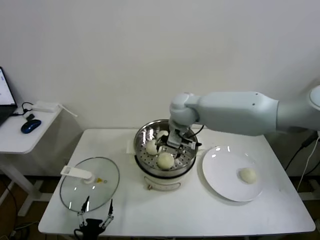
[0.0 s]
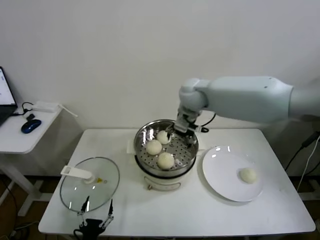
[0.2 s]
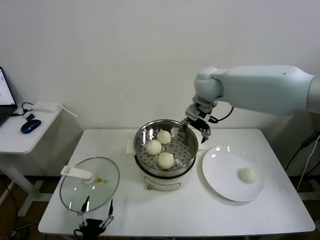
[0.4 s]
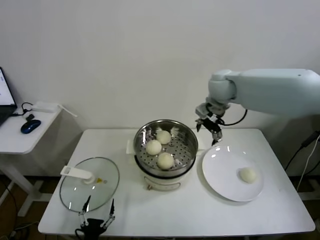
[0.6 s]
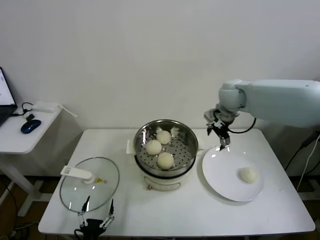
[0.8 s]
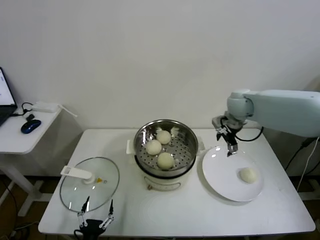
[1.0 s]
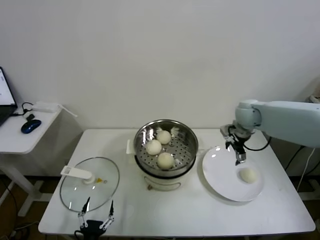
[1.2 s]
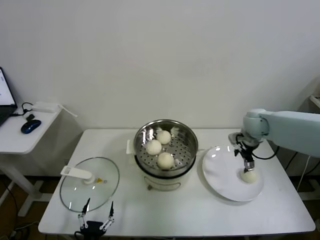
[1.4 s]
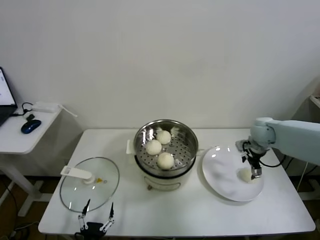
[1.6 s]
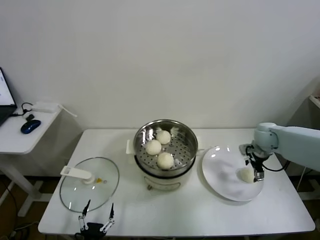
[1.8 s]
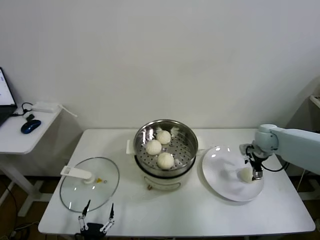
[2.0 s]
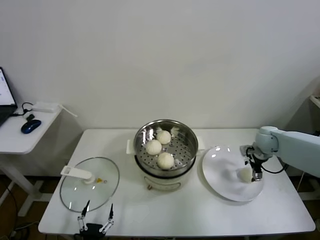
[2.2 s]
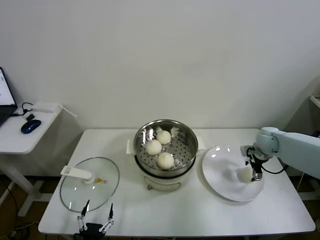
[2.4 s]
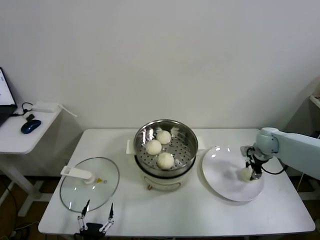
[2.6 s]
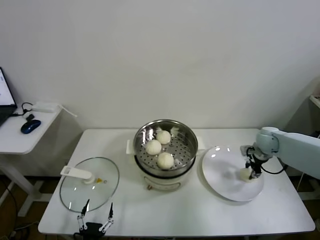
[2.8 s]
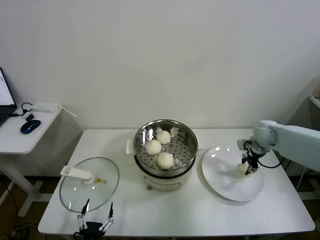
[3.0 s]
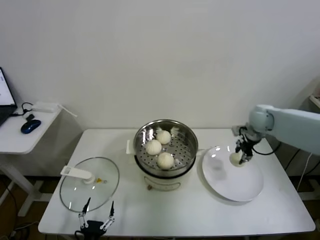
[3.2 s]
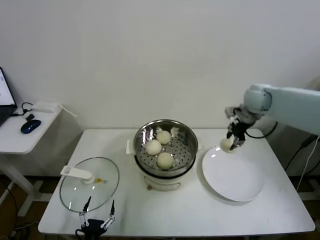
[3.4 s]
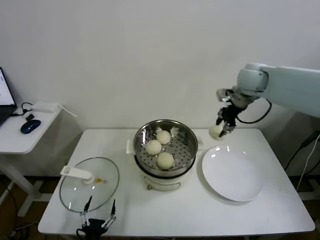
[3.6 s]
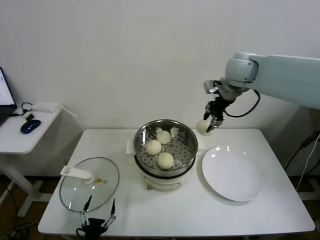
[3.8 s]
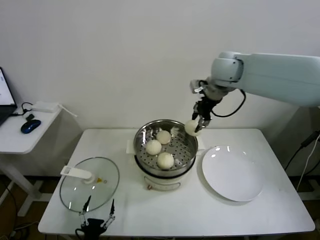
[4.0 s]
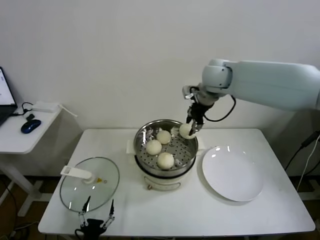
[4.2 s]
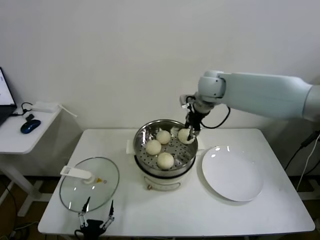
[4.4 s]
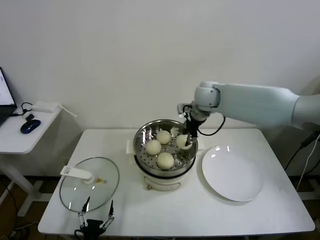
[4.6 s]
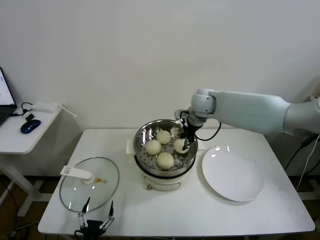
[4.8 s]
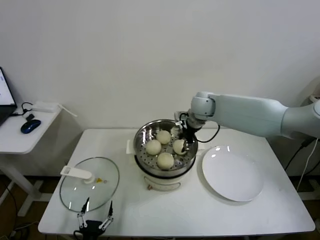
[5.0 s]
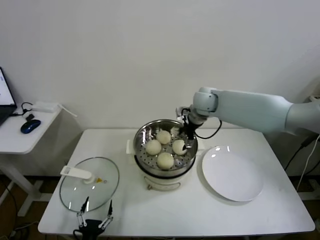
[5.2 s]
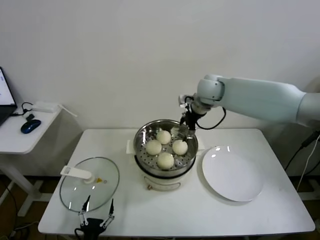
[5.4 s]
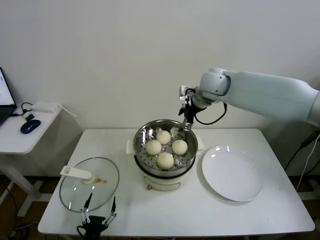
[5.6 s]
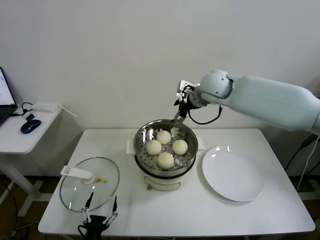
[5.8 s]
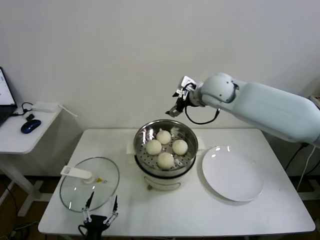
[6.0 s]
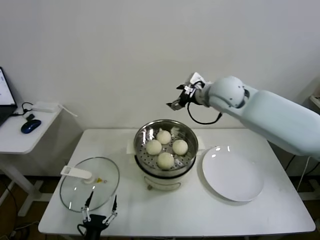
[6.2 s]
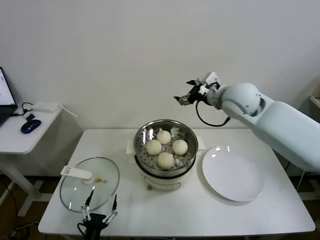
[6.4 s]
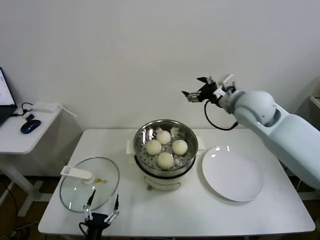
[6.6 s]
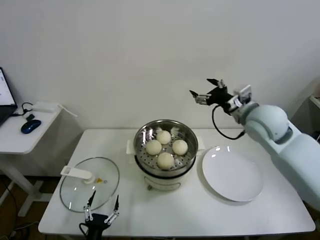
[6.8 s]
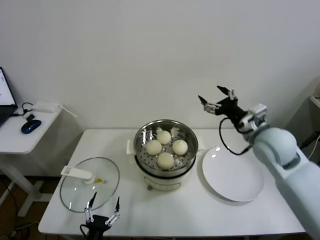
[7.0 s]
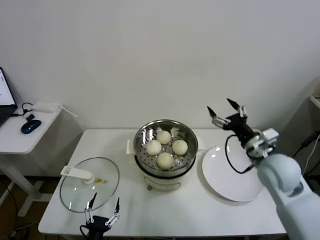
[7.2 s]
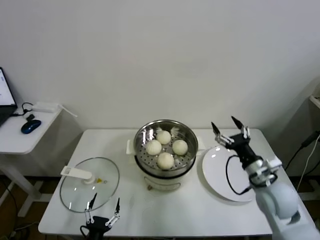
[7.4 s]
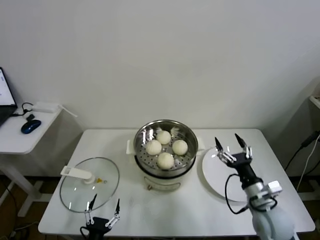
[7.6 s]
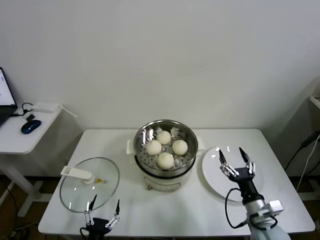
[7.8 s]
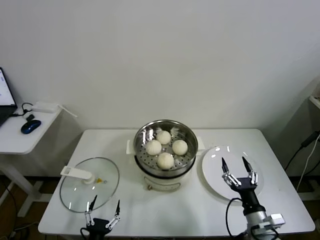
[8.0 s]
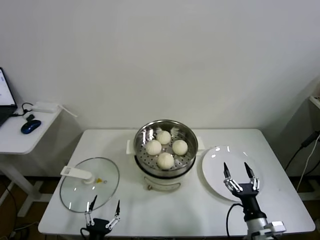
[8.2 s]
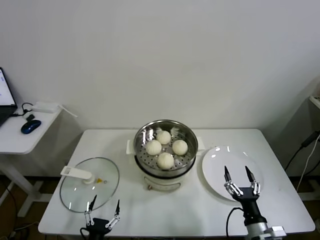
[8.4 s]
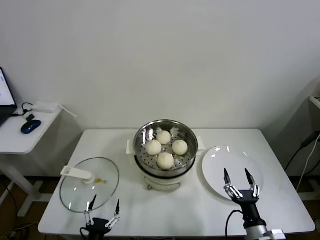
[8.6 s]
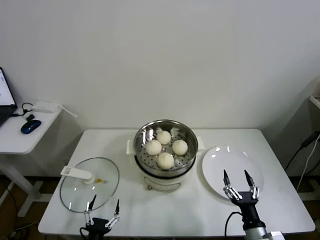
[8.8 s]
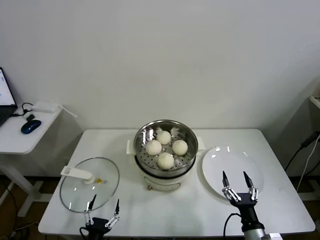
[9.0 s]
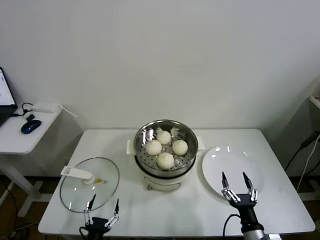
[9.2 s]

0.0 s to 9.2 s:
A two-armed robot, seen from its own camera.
Task of the whole recording: take steamed baozi put them in steamer.
Step, 0.2 to 2.6 s: Grasp the baozi in the plate with right gripper.
Step, 2.8 to 5.2 s: Place the baozi on the steamer with right gripper.
0.0 to 1.6 s: The right gripper shifts approximately 30 cm to the right.
1.6 to 3.0 s: The right gripper closes its fingers.
3.0 to 4.6 s: The right gripper heads to the left and upward, covering about 30 cm.
4.6 to 6.2 s: The right gripper moves backward, about 5 cm, and opens.
6.2 to 7.6 s: The right gripper goes approximately 35 cm downward, backward and to the right.
7.6 to 9.2 s: The right gripper shifts roughly 15 cm backward and downward.
